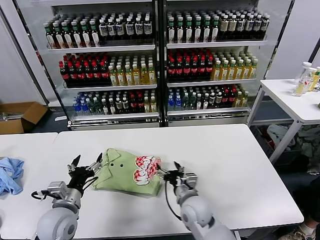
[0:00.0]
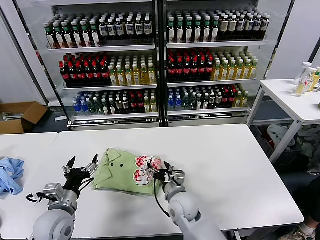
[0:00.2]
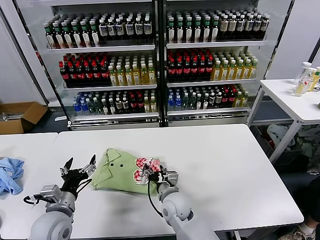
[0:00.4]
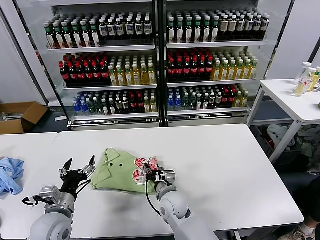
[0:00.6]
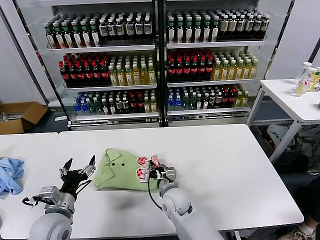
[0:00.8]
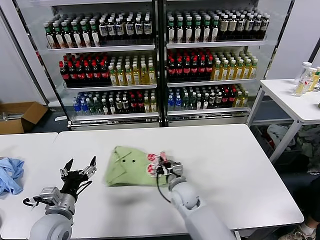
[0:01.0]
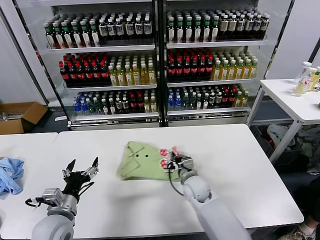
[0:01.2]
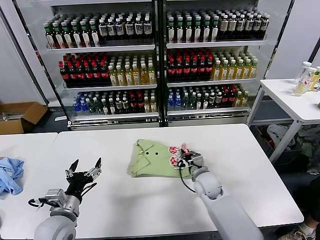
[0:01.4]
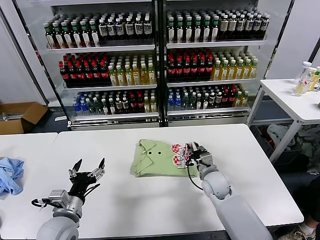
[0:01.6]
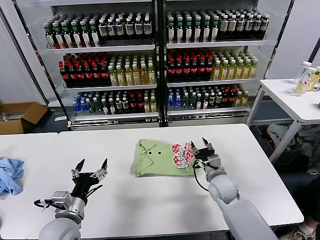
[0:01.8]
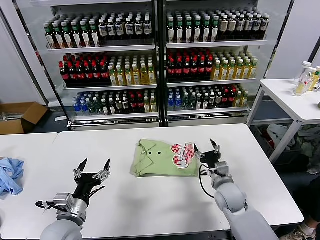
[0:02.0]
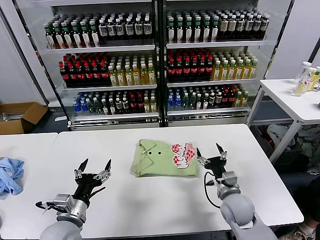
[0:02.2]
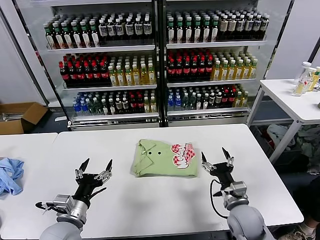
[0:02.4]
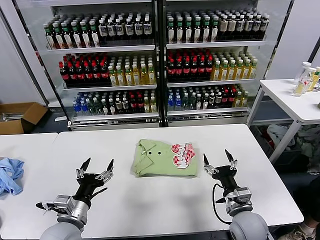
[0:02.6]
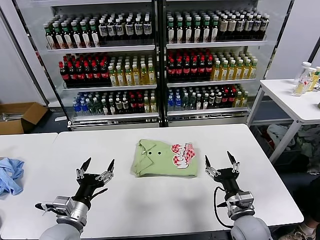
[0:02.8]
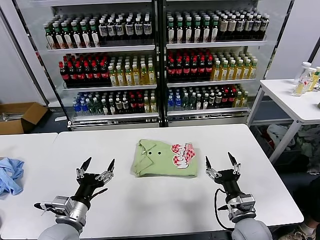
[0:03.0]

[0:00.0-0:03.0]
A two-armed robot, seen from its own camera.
Task of the whole recording: fold and organize the clothes.
Step, 0:00.0 to 0:01.6: Drag the clothes to the center of the table.
0:00.0 to 0:01.6: The right gripper shifts some 10 cm forward and to the right, and closes up.
0:01.6 to 0:03.0: The right gripper moves backward, approximately 15 cm, and opens.
